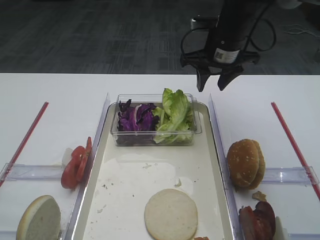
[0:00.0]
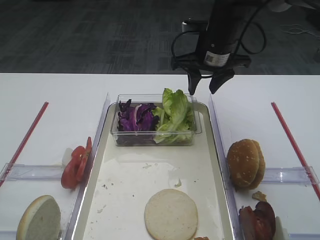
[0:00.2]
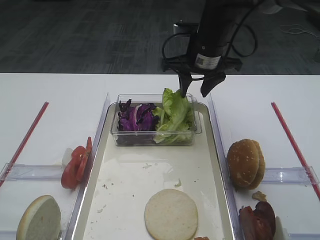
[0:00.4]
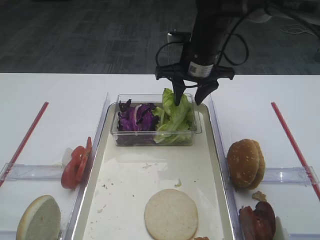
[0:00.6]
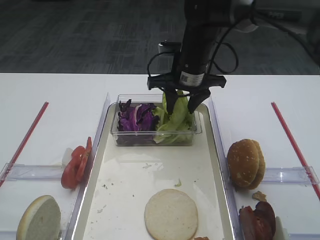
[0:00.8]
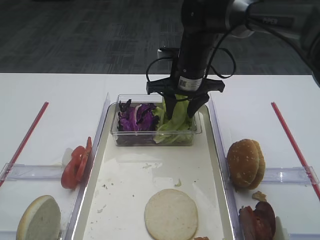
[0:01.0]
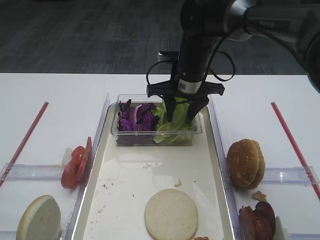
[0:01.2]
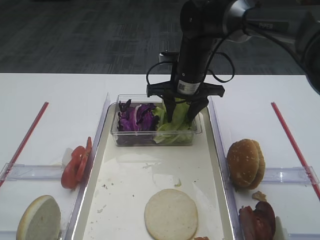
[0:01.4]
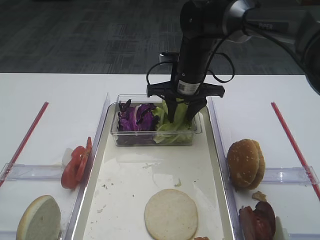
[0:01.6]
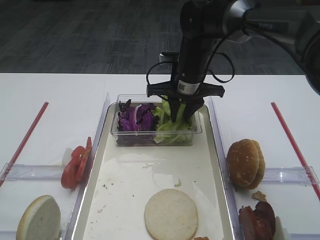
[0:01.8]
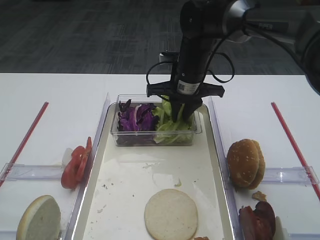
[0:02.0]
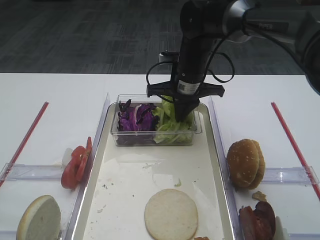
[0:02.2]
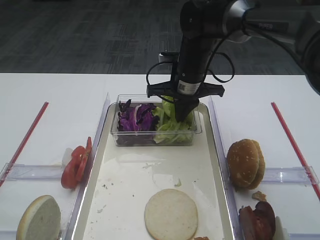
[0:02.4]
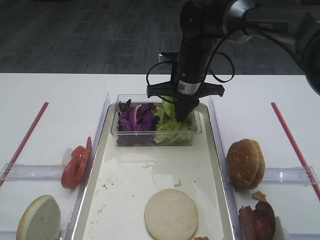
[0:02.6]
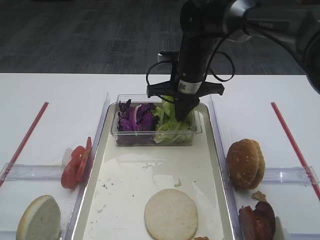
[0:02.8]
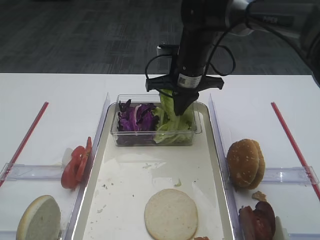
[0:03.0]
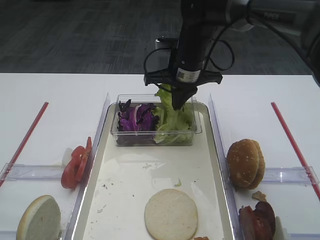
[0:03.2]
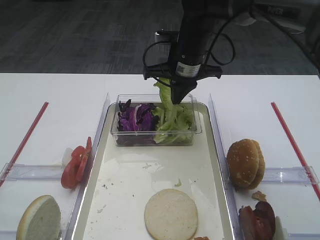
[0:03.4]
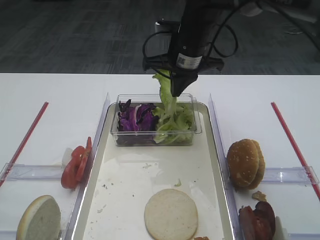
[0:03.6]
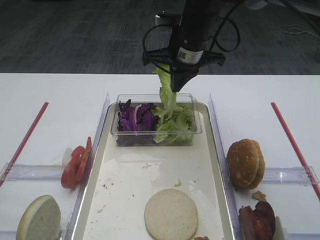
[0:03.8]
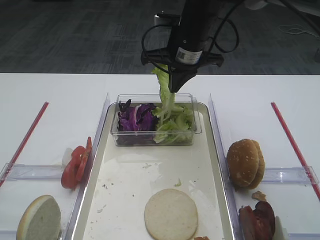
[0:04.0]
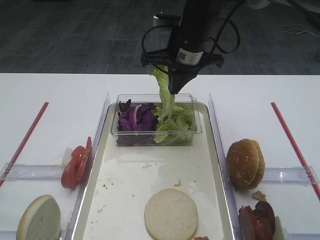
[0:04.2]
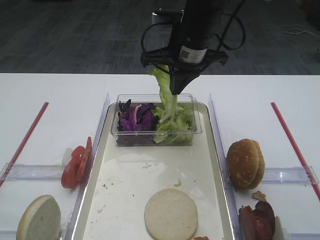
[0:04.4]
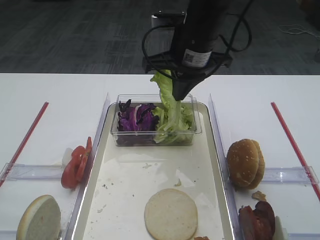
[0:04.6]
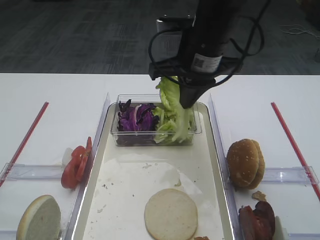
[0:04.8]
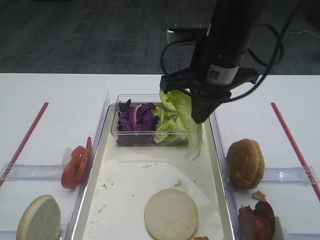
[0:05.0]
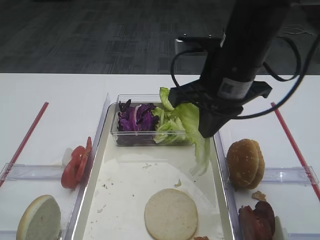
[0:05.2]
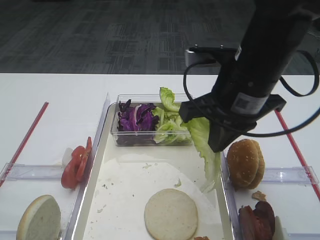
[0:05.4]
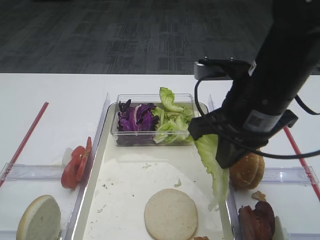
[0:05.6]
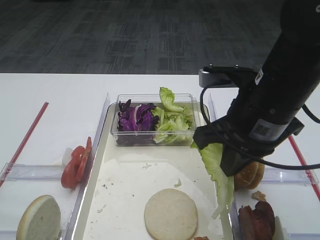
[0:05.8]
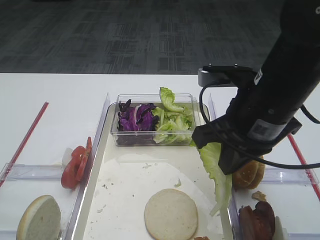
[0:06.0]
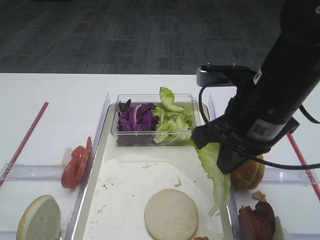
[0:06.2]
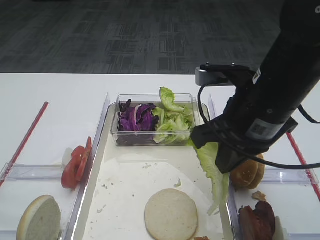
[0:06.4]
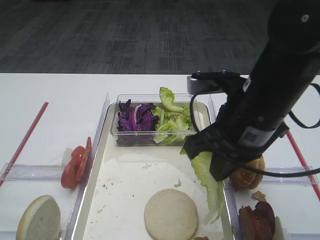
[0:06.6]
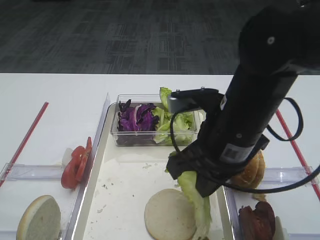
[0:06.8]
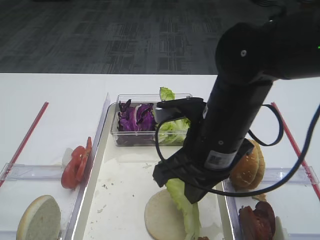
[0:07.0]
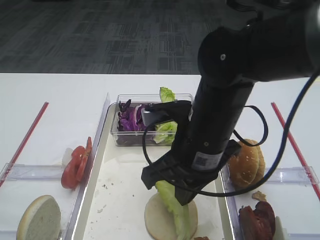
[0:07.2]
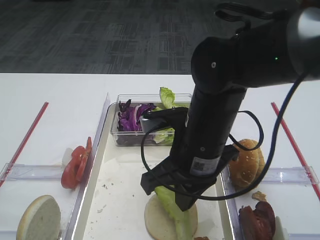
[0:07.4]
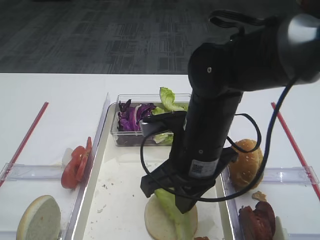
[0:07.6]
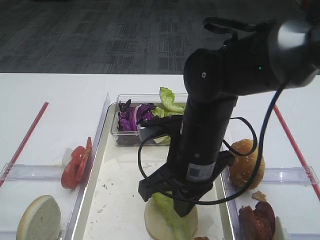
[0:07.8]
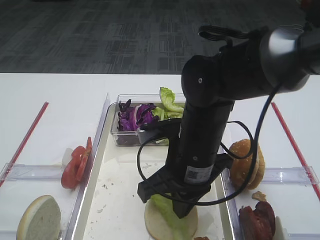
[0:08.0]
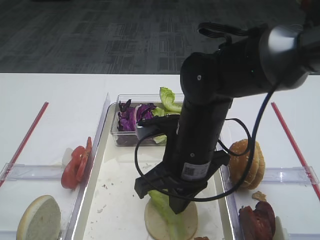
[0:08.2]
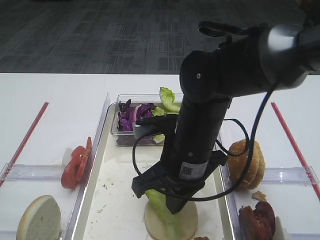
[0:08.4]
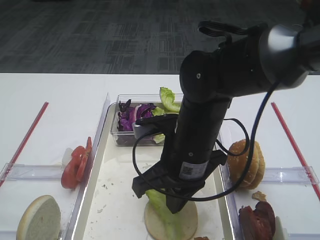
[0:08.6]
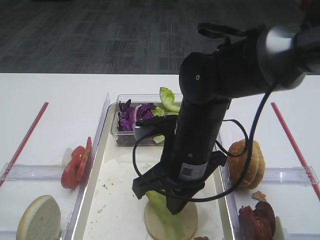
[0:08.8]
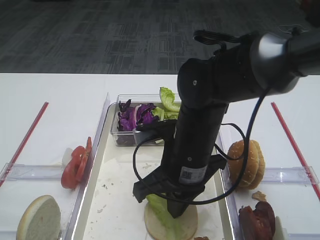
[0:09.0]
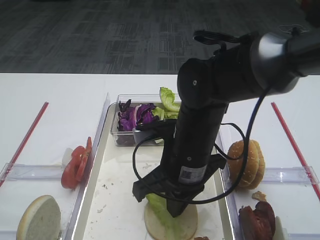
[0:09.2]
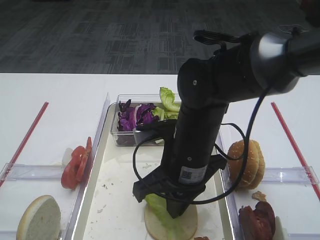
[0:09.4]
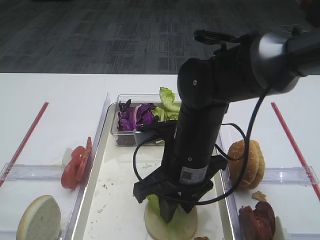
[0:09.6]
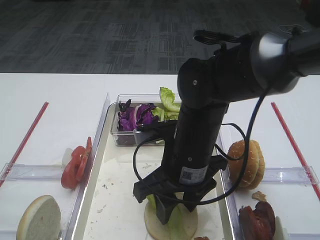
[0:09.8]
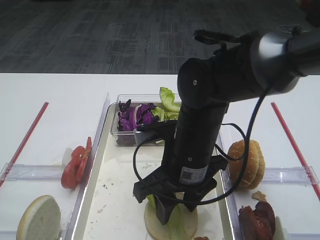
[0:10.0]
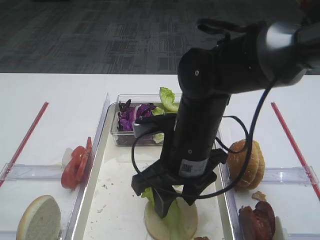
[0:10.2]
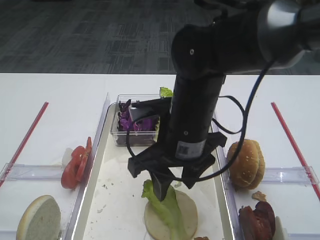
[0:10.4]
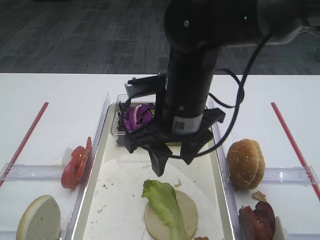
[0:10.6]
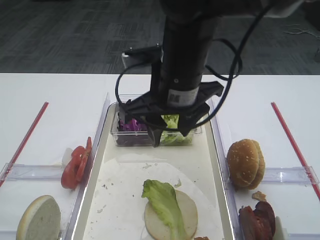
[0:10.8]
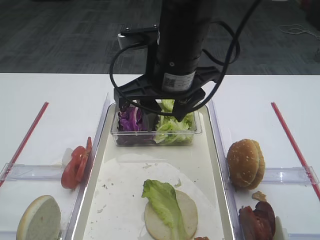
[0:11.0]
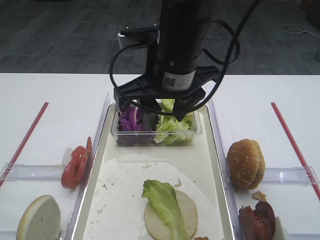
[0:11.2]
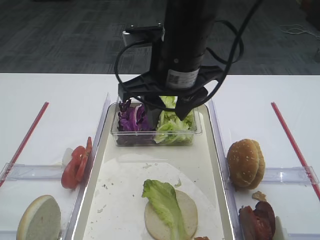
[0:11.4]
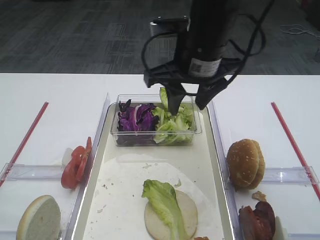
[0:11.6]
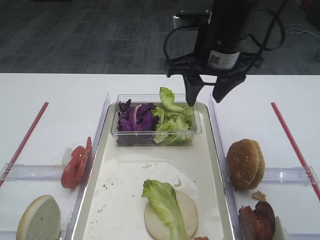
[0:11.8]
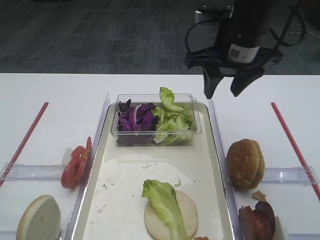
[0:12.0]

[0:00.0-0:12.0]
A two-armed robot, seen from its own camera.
Step, 0:00.0 to 0:04.0: Pick up the lettuce leaf with the right gripper.
Step, 0:04.2 to 0:10.2: Place the lettuce leaf on the bread slice with the right gripper.
0:00.0 to 0:01.6: The right gripper goes approximately 10 cm to the left and downward.
0:01.6 to 0:03.0: The right gripper closes.
0:03.0 to 0:04.4: The right gripper heads upward, covering some 5 cm.
0:04.4 to 0:06.0: The right gripper is displaced backward and to the right by approximately 20 cm.
0:06.0 to 0:07.6: The right gripper shifts some 10 cm to the left and downward.
0:07.6 to 0:09.0: The grippers make only small movements.
0:09.0 to 0:10.4: The right gripper opens.
0:10.4 to 0:12.0: The right gripper is displaced forward, to the right and upward by about 15 cm.

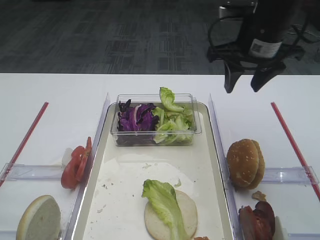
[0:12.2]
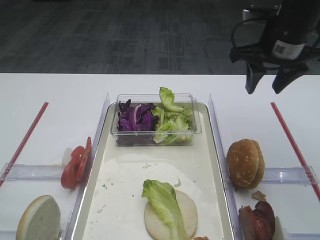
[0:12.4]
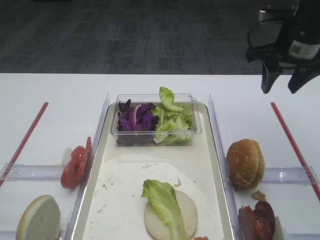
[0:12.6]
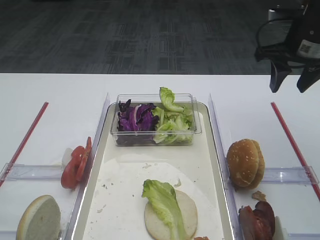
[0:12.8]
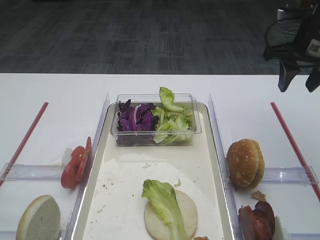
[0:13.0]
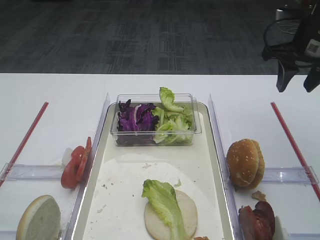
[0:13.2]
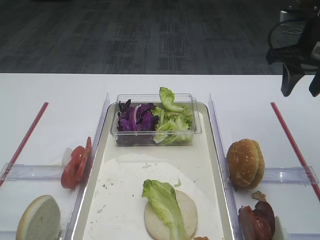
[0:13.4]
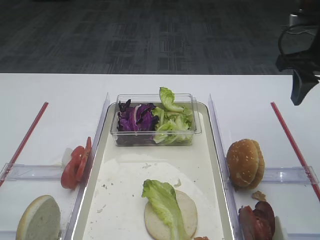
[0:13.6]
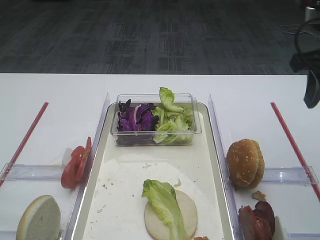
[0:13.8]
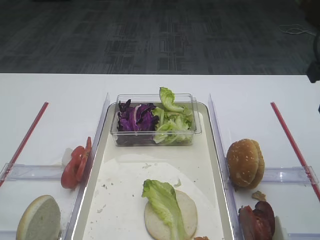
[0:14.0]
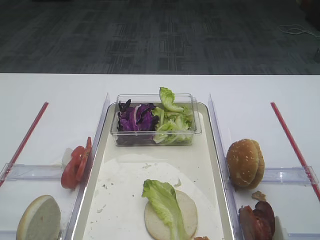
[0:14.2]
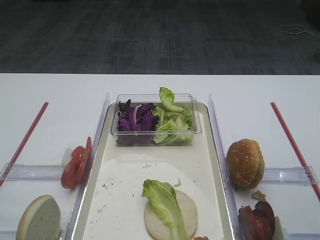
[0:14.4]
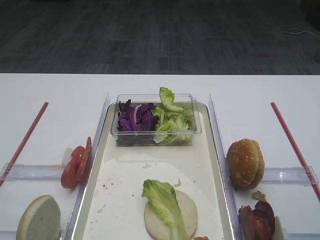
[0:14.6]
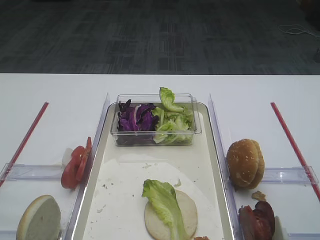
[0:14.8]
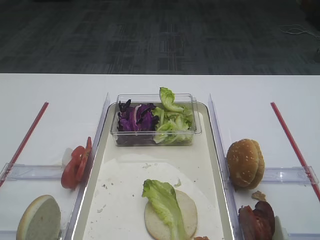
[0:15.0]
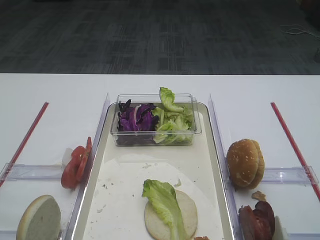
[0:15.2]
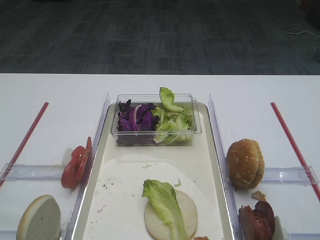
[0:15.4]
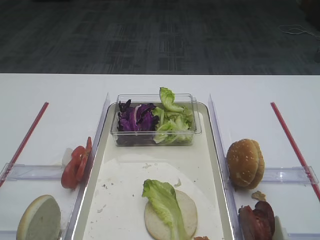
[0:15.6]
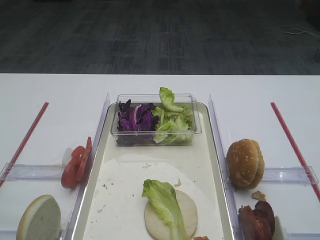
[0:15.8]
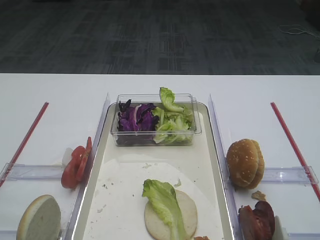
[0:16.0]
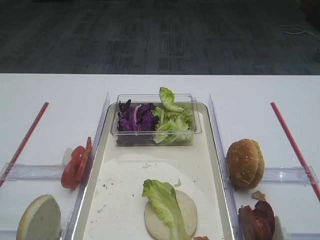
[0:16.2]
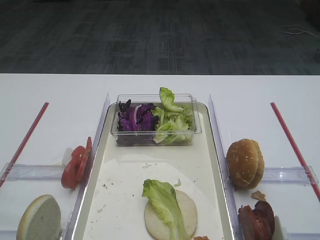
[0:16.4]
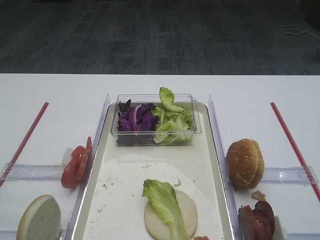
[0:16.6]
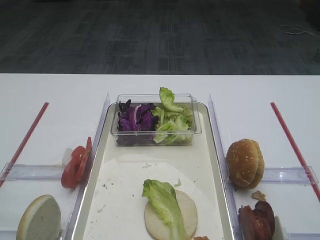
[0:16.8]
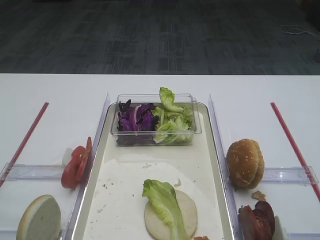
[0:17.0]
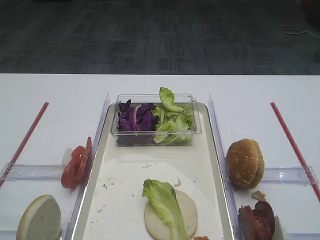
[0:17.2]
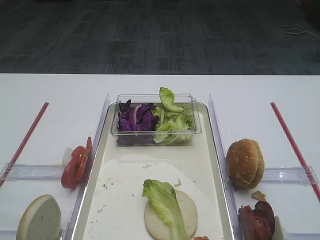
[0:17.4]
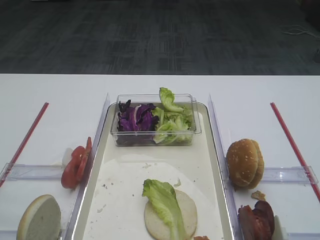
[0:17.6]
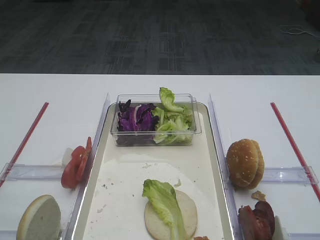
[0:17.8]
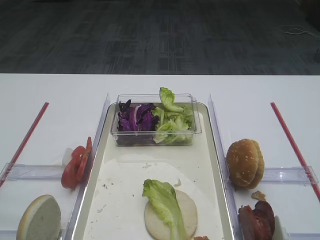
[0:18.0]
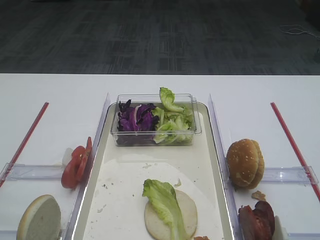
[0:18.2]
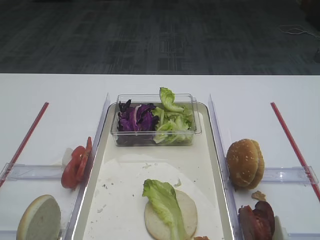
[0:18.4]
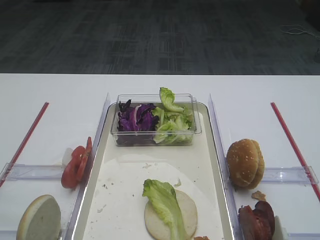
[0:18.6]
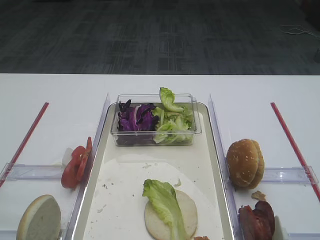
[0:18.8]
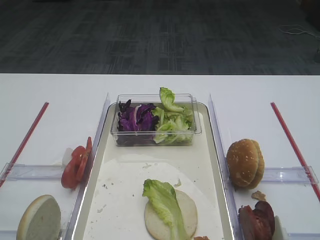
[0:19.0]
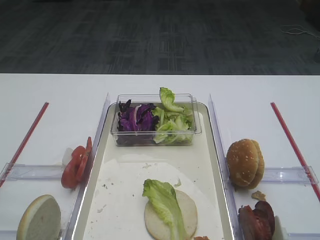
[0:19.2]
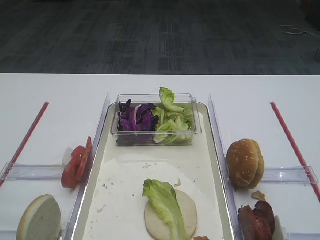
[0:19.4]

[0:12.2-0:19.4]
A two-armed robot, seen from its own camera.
0:12.2 to 0:13.6: The right gripper travels to the right by about 10 cm.
0:13.6 to 0:15.0: The right gripper shifts roughly 20 cm backward.
0:18.0 to 0:19.4: Both grippers stay about where they are.
